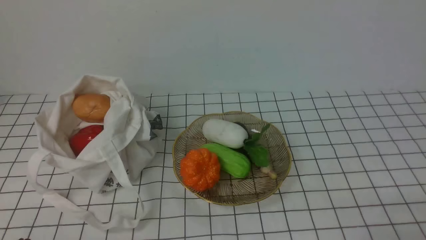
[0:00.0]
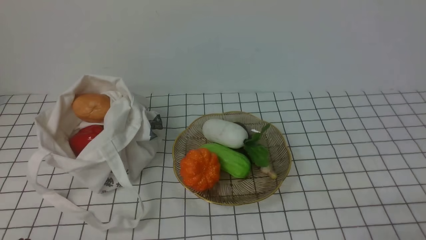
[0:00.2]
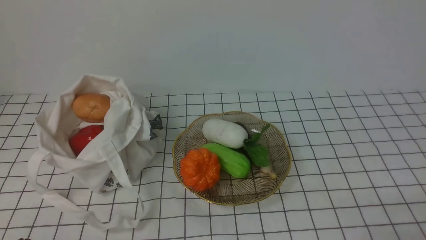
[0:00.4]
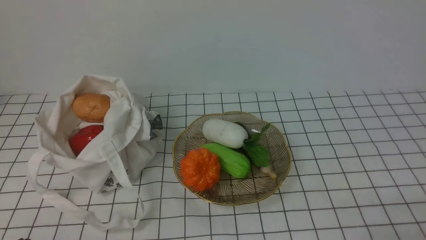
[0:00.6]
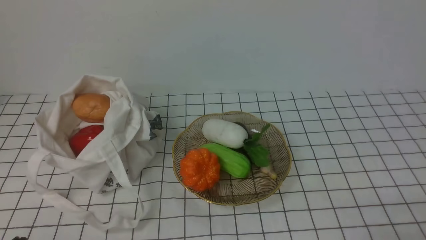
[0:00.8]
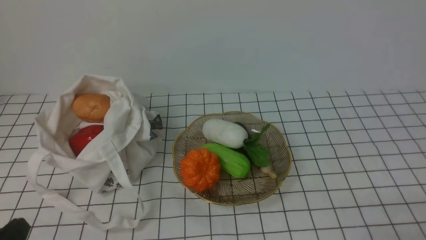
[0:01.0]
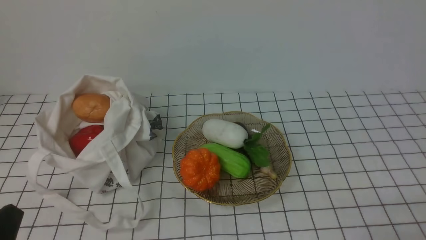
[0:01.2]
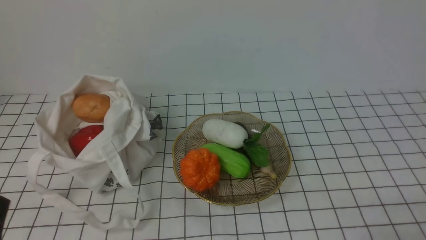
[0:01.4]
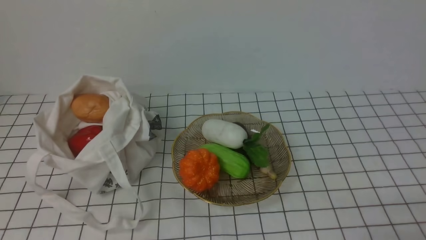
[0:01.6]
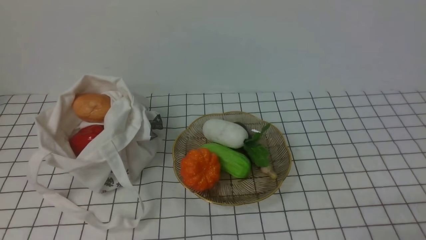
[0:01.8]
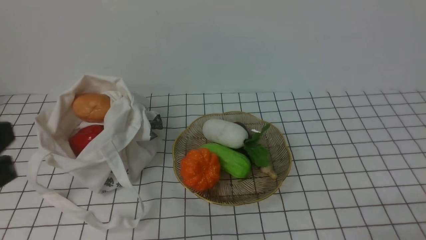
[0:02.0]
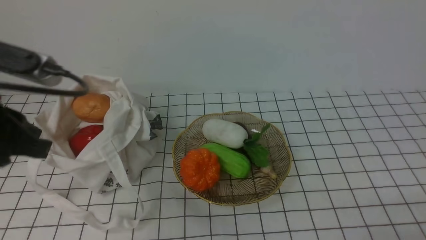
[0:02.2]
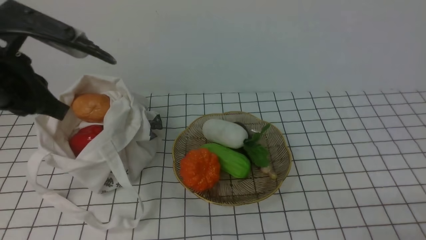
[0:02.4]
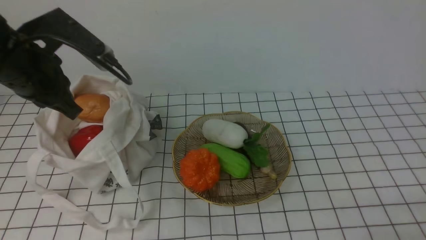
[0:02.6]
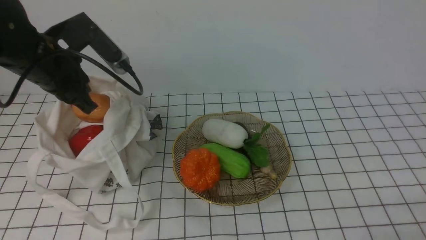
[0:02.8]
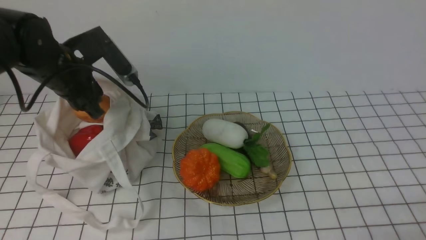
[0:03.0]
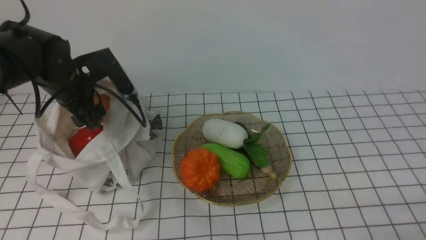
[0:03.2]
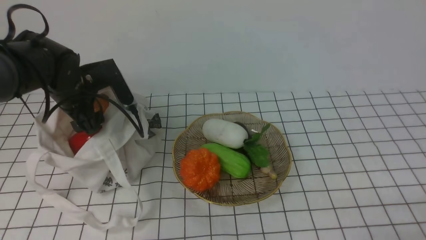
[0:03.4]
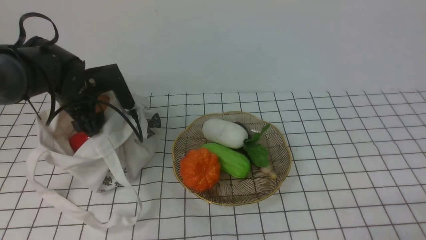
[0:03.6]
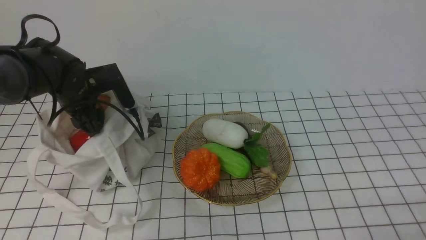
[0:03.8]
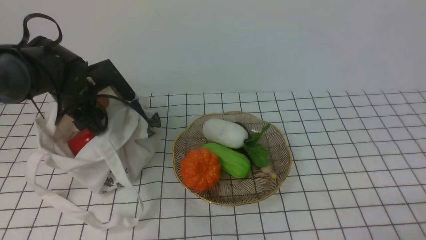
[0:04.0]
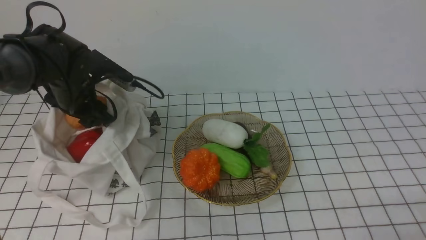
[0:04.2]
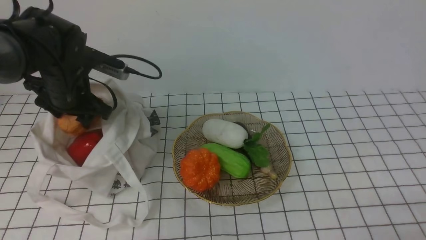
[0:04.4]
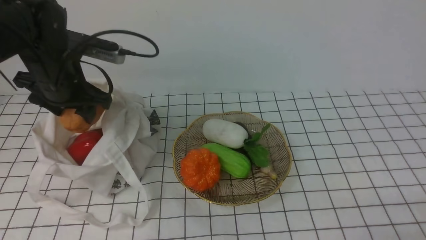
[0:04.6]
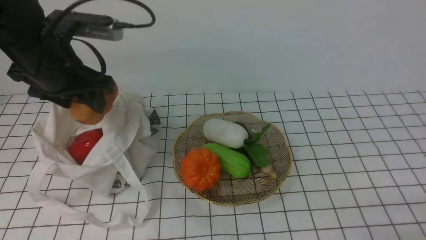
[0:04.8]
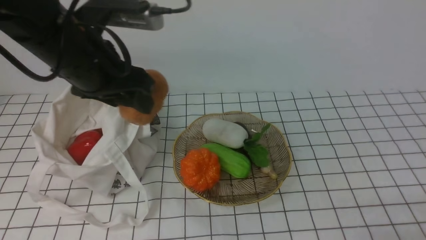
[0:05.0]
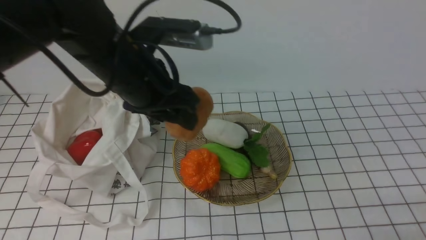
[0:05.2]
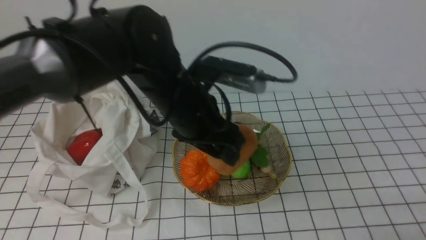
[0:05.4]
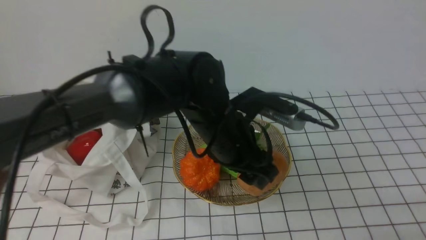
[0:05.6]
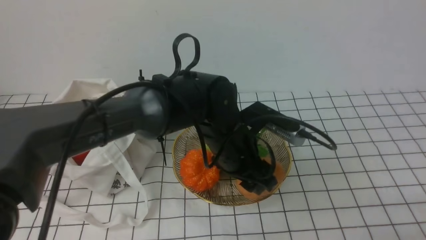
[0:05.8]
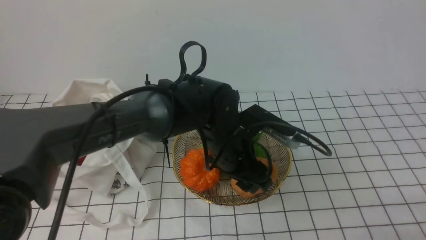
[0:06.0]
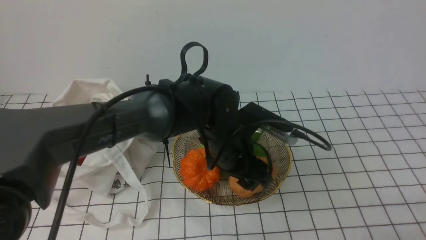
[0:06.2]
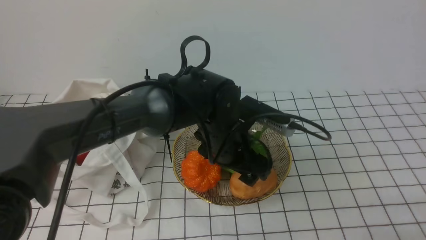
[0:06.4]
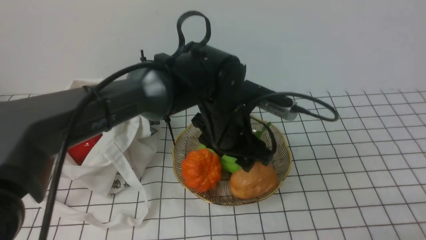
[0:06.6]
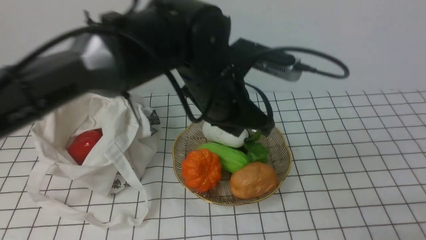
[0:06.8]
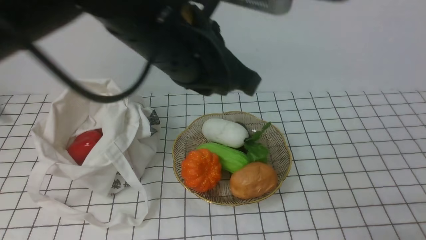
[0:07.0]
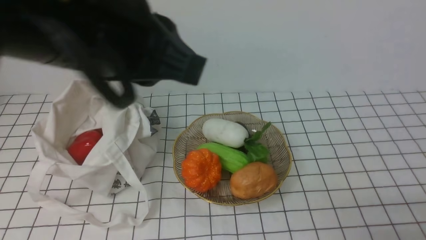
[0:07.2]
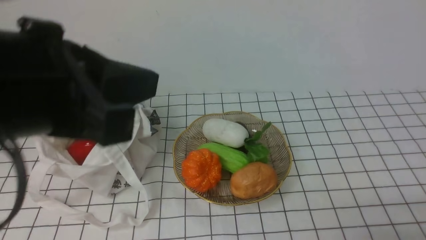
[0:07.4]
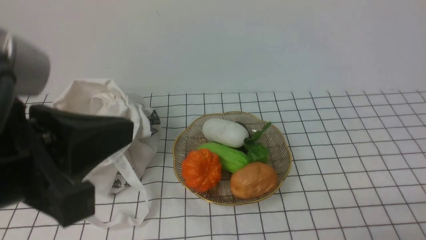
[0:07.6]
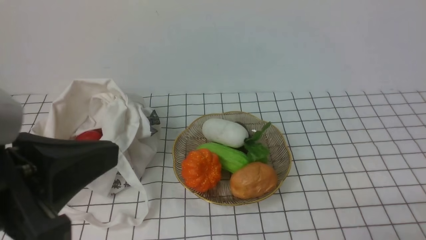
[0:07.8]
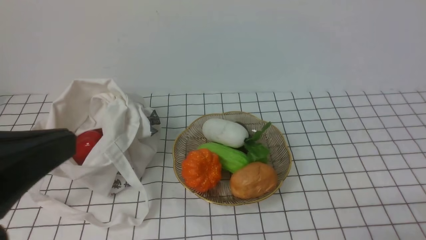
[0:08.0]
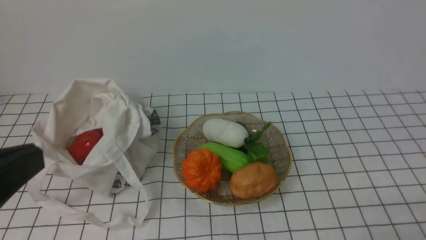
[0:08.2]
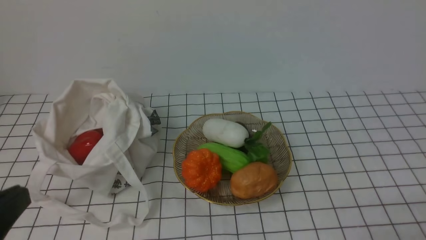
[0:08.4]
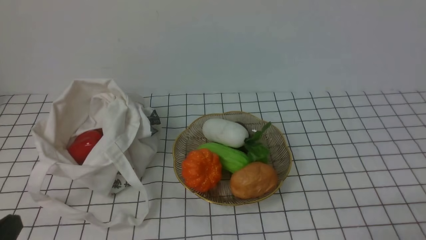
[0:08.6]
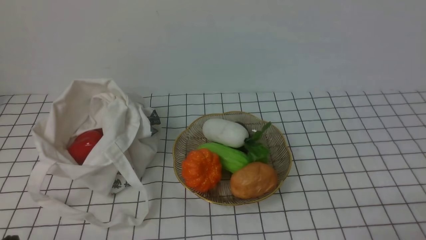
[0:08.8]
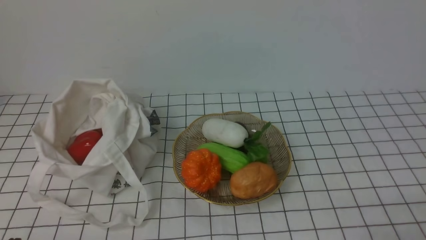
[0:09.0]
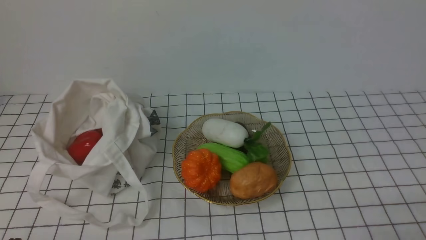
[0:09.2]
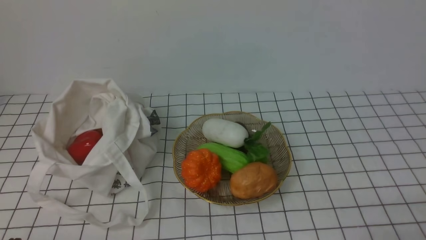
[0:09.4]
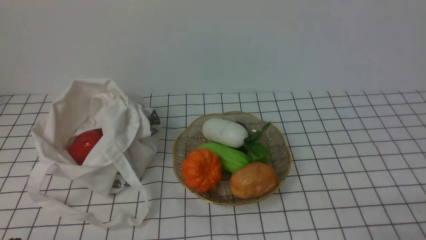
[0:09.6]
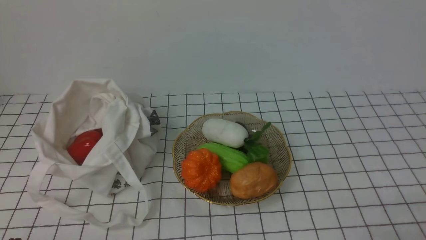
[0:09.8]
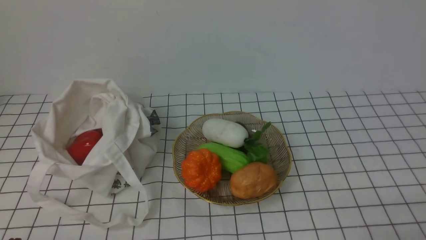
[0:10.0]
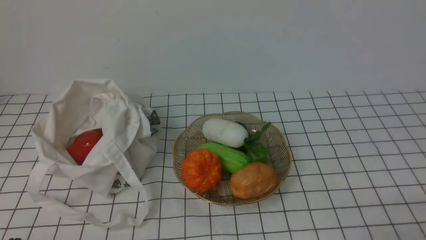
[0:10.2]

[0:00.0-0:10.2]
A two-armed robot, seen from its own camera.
Task of the whole recording: take vegetables from bag on white checkered tablecloth place on plate.
Step, 0:00.0 to 0:03.8: Grasp the potato with left gripper.
Step, 0:04.0 to 0:06.4: Place the potato on the plate with left gripper.
0:01.4 to 0:03.0: The left gripper goes some 30 cm forward, and opens.
0:03.0 to 0:04.4: The left gripper moves downward, about 5 cm, and opens its fingers.
0:04.4 to 0:05.8: The left gripper heads to the right, covering some 25 cm.
0:05.8 to 0:07.2: The left gripper heads upward, backward and to the left, covering some 20 cm, and closes.
0:07.2 to 0:08.8: The left gripper is displaced downward, to the left and backward by approximately 35 cm.
